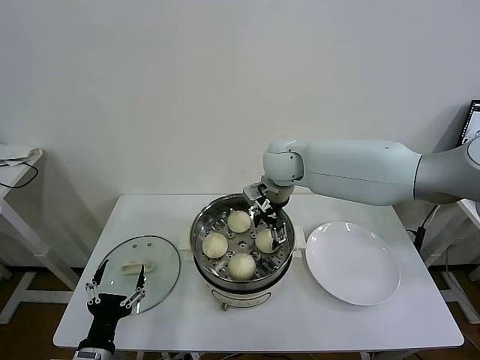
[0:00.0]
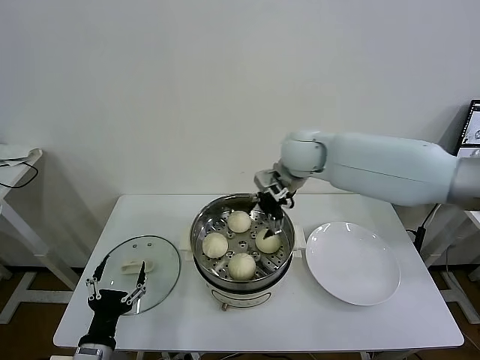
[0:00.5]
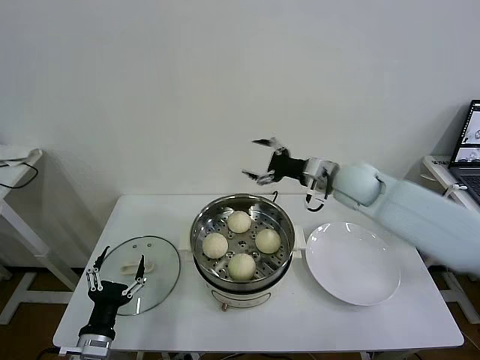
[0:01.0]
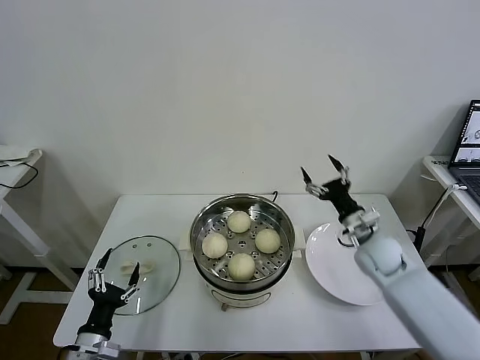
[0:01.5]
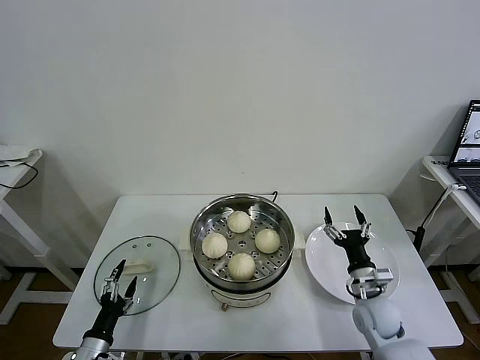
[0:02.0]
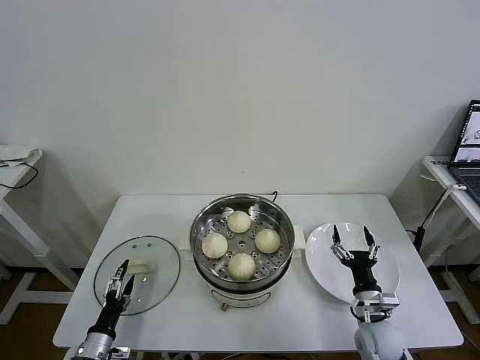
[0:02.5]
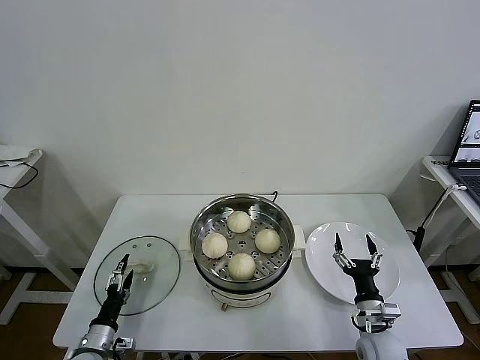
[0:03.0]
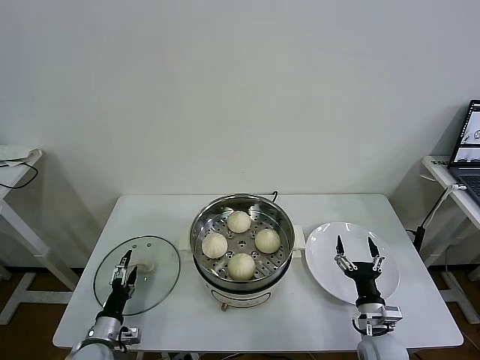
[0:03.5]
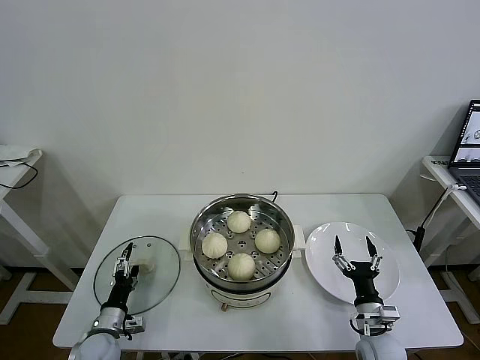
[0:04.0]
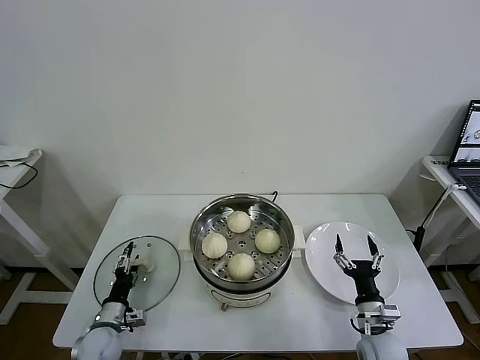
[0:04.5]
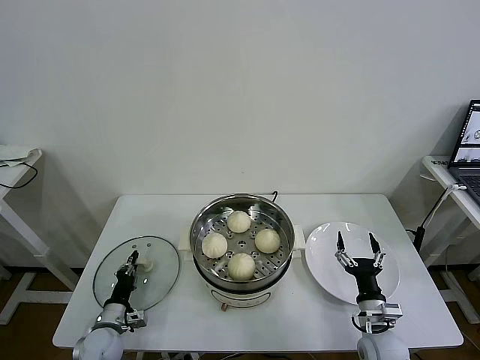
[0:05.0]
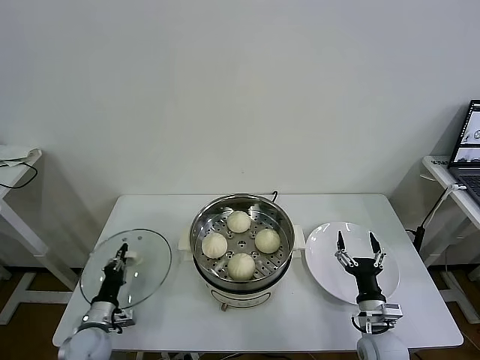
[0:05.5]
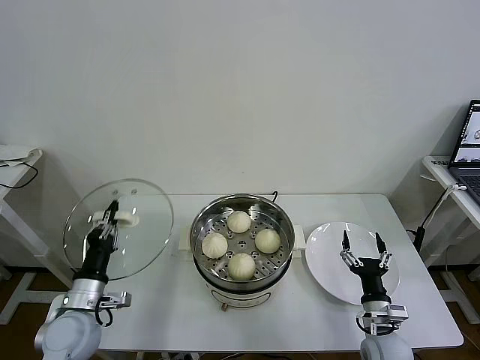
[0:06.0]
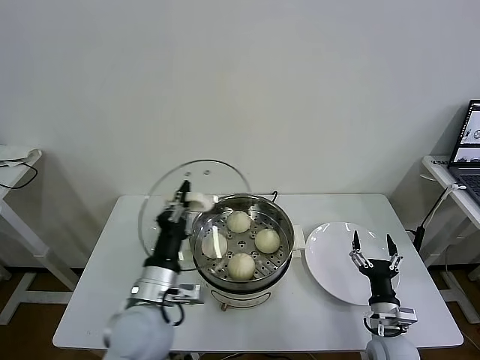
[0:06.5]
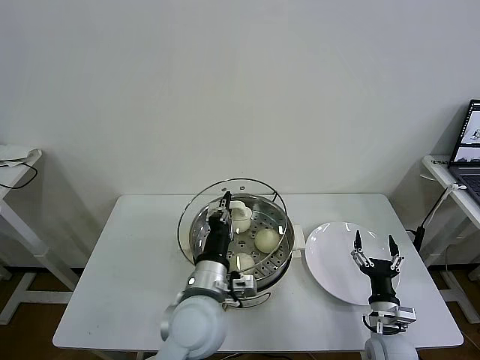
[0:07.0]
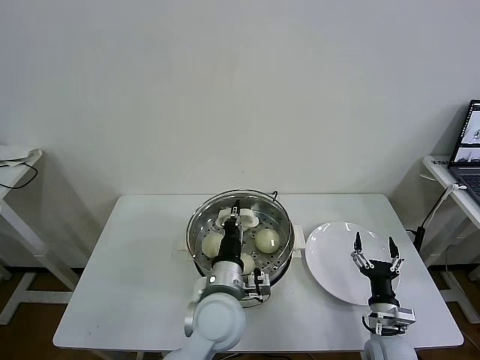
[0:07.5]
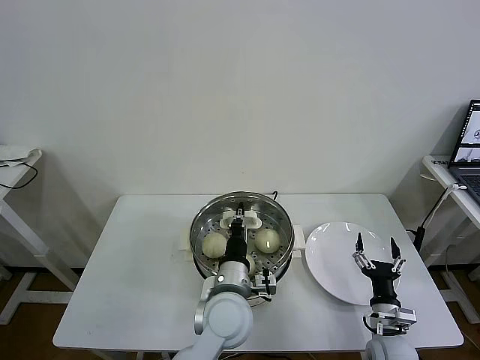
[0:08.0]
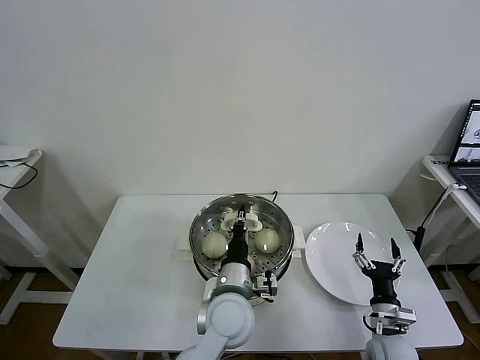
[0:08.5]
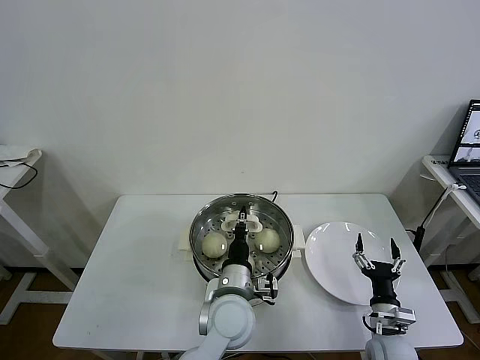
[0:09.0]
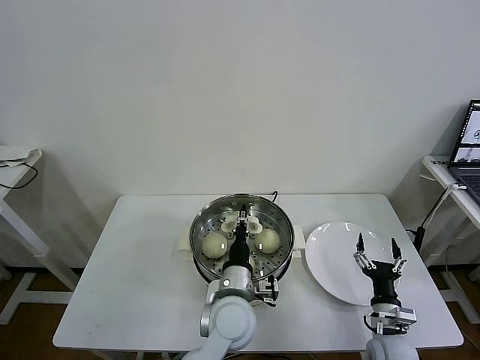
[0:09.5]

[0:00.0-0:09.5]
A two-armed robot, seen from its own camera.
Task of the whole recording: take steamed baozi put them in steamer then cover it.
Step, 0:00.5 to 0:05.0: Grasp the pot lid with left gripper.
0:00.0 to 0:02.0: The right gripper heads downward, backward and to the right, covering roughly 40 cm; the left gripper shifts some 10 cm downward and to the left.
0:02.0 to 0:04.0: The left gripper travels forward by about 10 cm; the right gripper heads backward, covering roughly 5 cm.
0:04.0 to 0:05.5: The left gripper closes its fingers.
0:05.5 to 0:07.5: The left gripper moves to the right and upward, roughly 35 cm.
0:07.5 to 0:09.5: The grippers make only small movements.

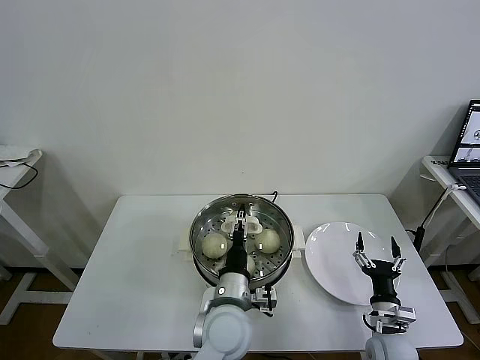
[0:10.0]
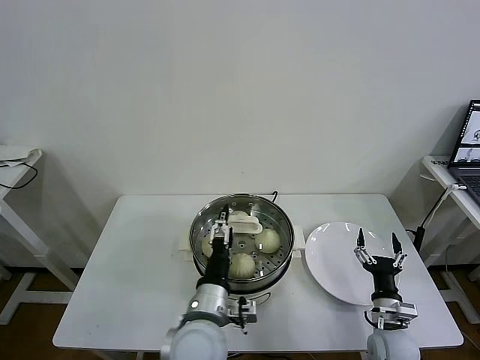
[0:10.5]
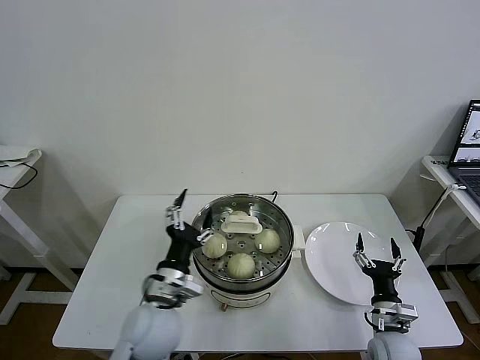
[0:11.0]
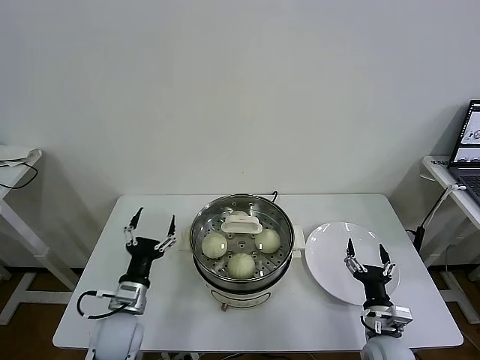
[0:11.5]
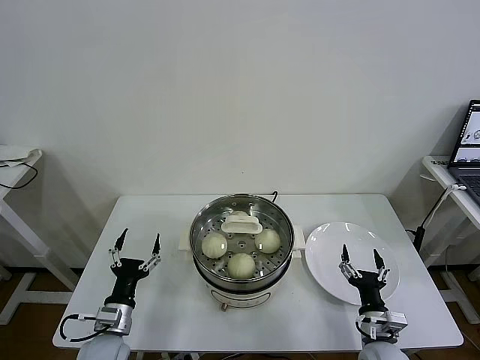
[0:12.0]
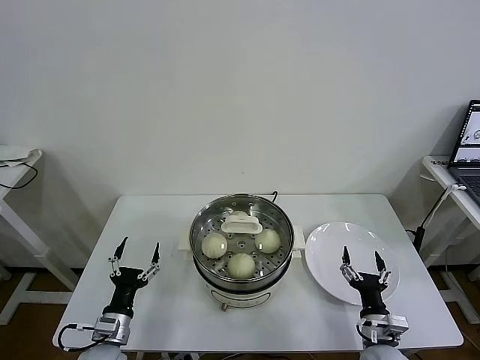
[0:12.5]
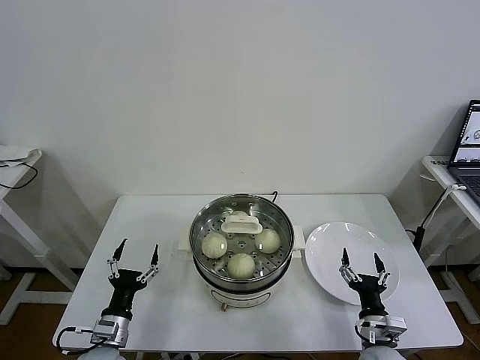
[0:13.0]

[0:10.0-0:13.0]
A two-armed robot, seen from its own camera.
Task of the whole recording: take steamed baozi put them in steamer then cover it.
0:10.0 to 0:11.5: The left gripper travels to the left by approximately 20 cm, and opens up.
0:11.5 to 0:13.0: The left gripper moves downward and backward, about 10 cm.
